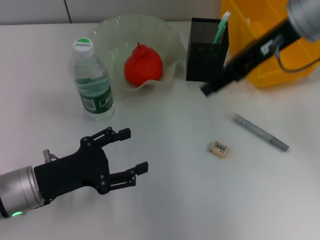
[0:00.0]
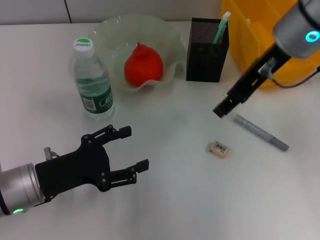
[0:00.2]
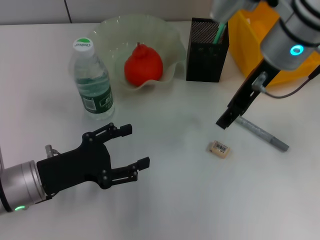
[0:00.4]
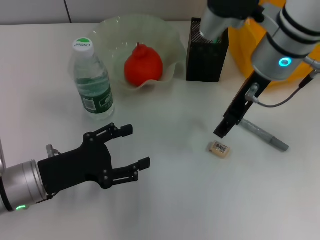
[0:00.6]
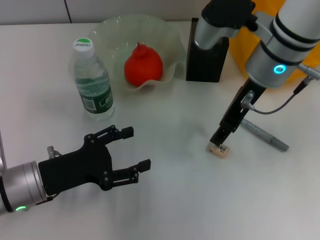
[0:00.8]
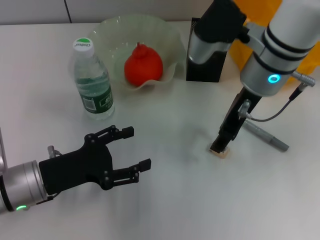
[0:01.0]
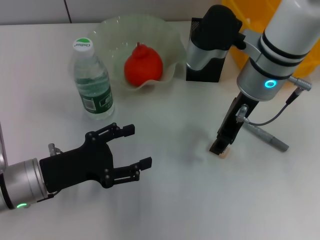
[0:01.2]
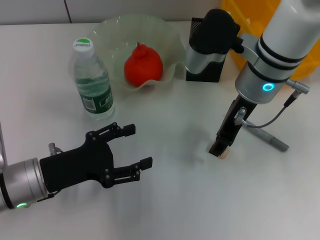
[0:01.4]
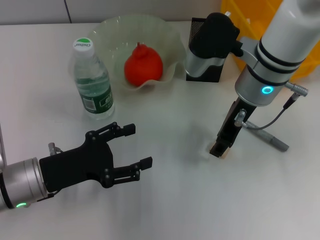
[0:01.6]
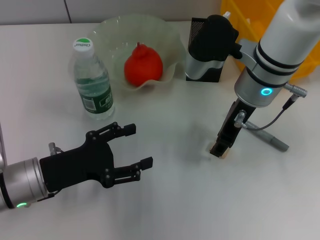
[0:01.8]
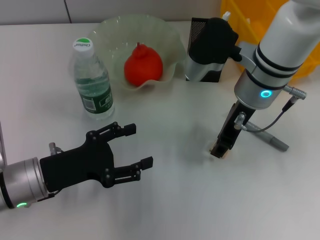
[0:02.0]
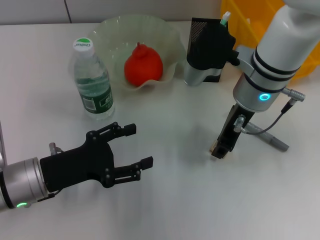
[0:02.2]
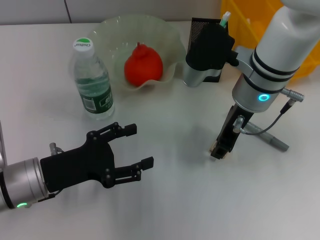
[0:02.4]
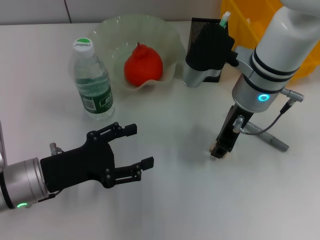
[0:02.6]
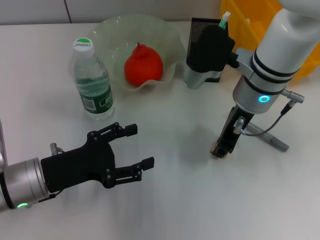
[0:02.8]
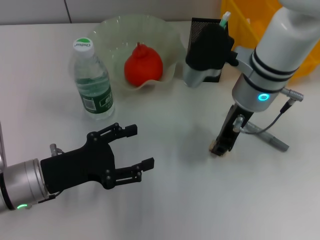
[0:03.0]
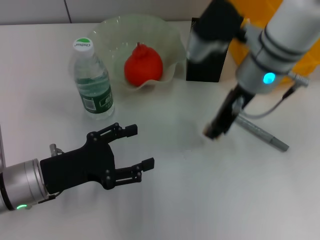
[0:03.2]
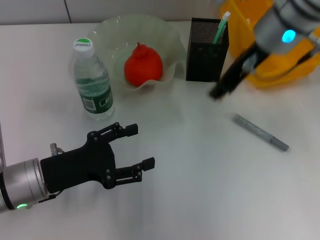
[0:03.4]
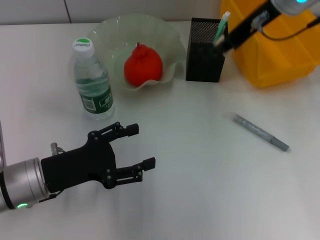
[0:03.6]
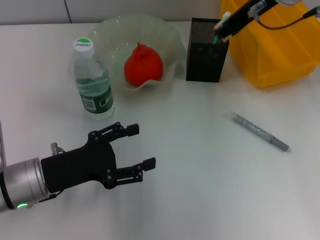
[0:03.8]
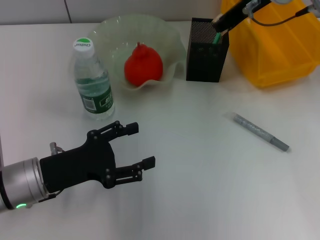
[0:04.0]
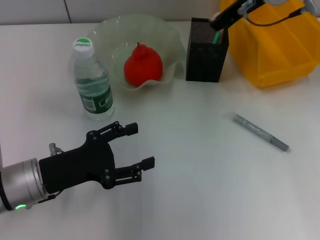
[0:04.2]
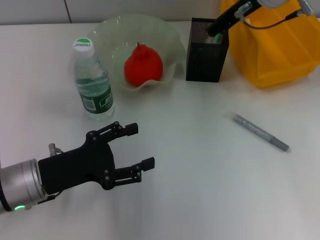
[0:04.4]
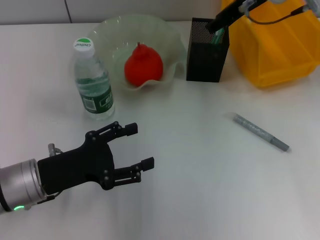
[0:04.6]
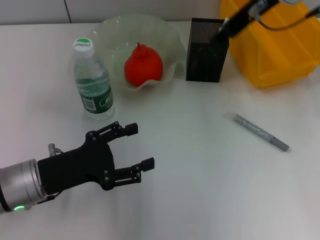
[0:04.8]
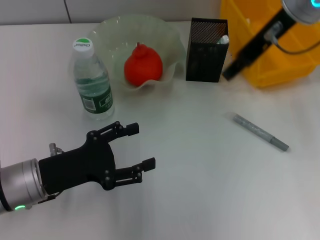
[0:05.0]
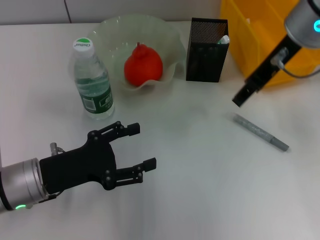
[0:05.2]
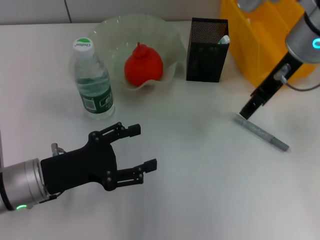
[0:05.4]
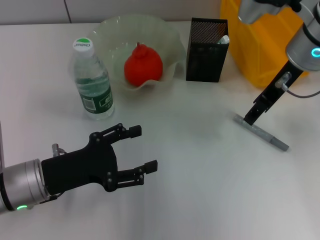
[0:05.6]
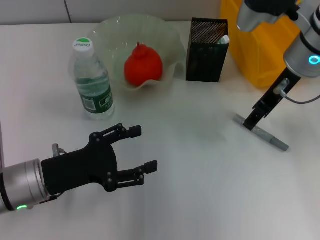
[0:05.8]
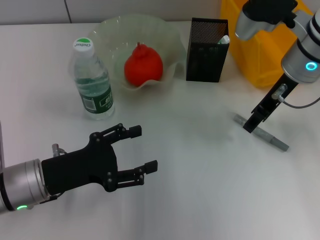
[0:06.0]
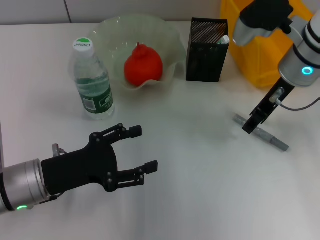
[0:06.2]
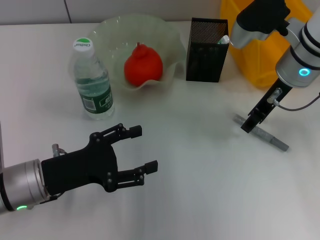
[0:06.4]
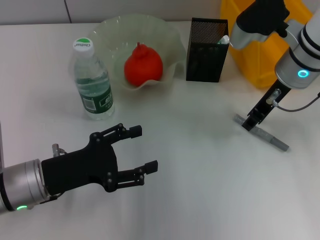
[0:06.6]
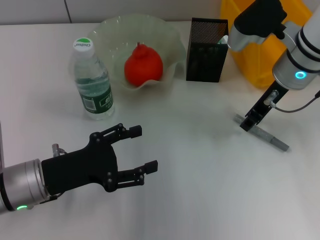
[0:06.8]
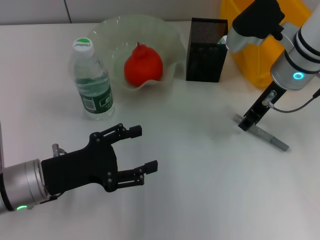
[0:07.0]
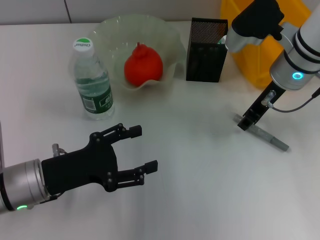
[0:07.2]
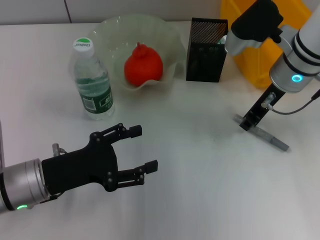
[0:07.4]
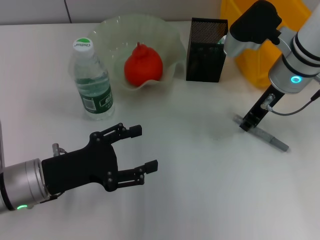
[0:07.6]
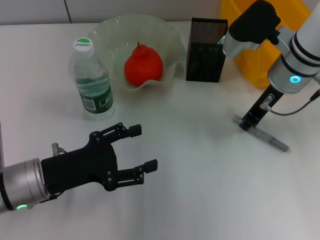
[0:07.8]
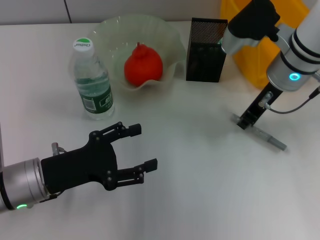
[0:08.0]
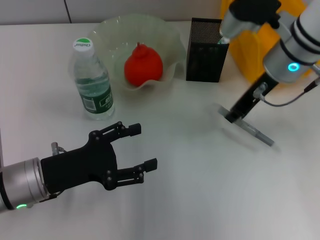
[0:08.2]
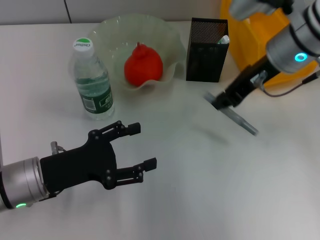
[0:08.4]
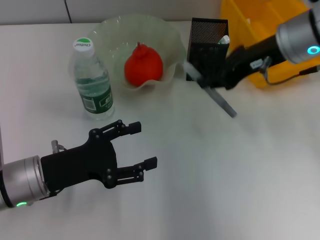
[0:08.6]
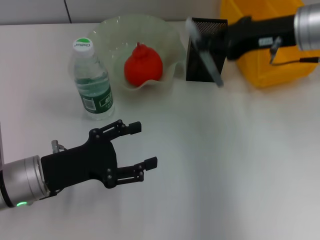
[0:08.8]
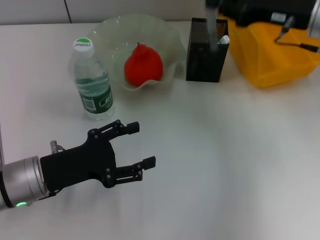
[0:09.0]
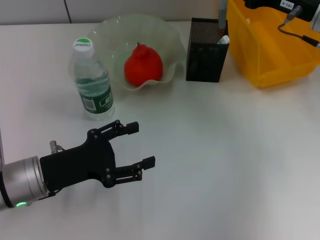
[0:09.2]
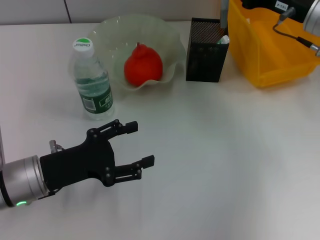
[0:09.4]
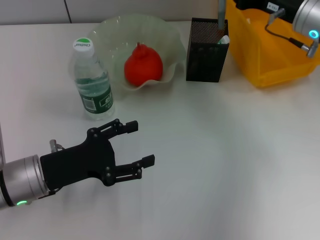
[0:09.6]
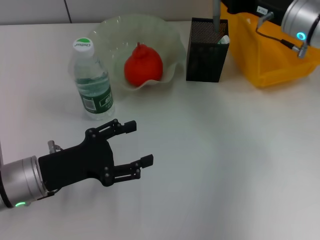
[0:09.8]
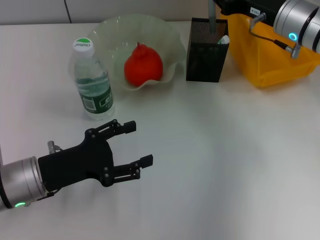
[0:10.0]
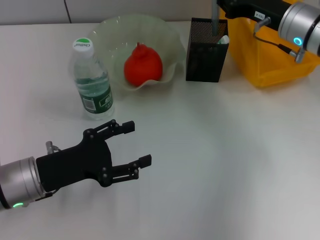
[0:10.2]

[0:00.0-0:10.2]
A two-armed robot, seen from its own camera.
Step, 0:00.0 to 0:02.8: Grab the eraser with the right hand.
Step, 0:03.0 to 0:04.4: Put the eraser into the pen holder with the right hand.
Step, 0:04.6 to 0:07.8: Grab the gray glue with the right hand.
0:00.0 to 0:01.4: The right gripper travels downward and to the left by approximately 10 cm.
0:01.4 to 0:03.0: The right gripper closes its fingers.
0:03.0 to 0:04.4: The right gripper moves upward and forward, about 10 cm.
0:04.4 to 0:05.8: The right gripper moves backward, some 5 cm, and opens.
0:05.8 to 0:07.2: The grippers move only a little.
0:07.2 to 0:08.8: The right gripper shifts by some 5 cm.
0:08.8 to 0:10.2: The right gripper moves downward, about 5 cm.

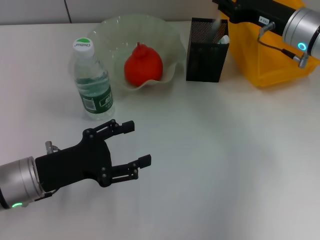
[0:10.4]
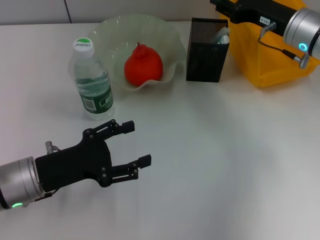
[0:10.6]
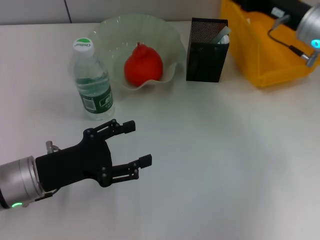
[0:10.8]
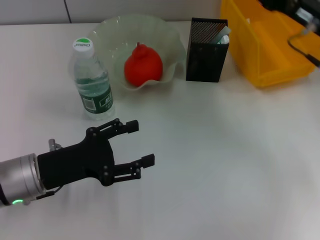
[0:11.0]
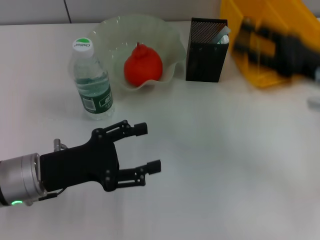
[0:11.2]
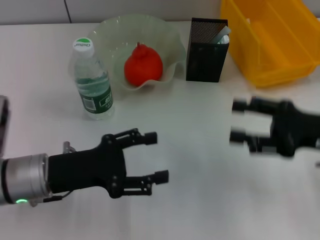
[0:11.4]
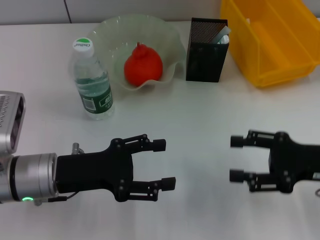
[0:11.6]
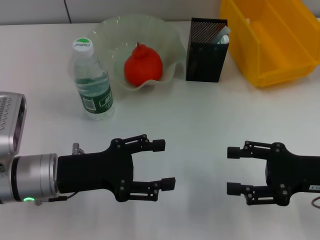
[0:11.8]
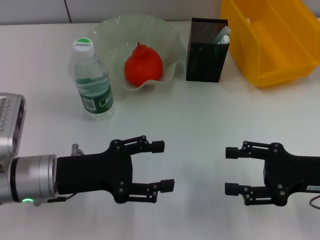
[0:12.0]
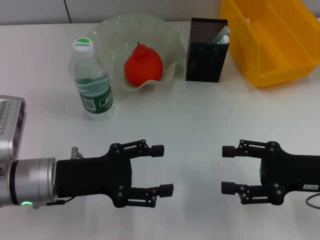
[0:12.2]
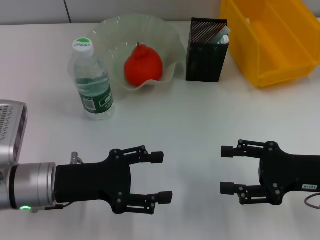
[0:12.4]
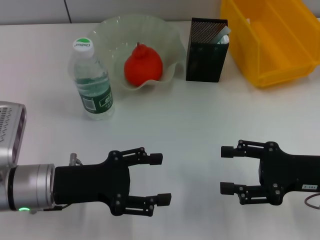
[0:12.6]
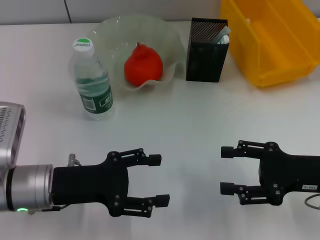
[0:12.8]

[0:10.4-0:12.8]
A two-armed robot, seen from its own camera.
0:10.4 to 0:11.6: The right gripper travels backward by roughly 15 cm, and opens.
0:11.6 to 0:12.8: The grippers stay close to where they were, moving slightly.
